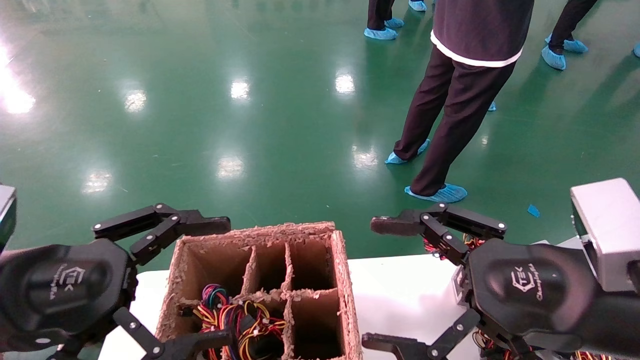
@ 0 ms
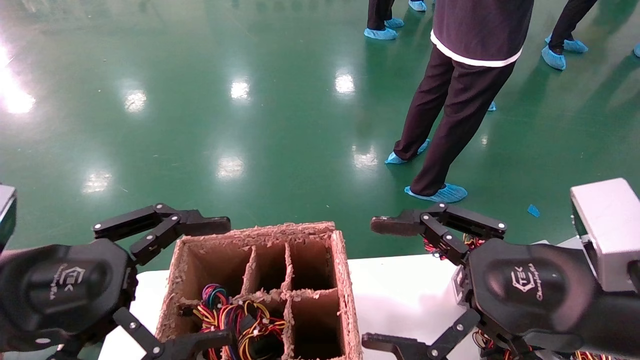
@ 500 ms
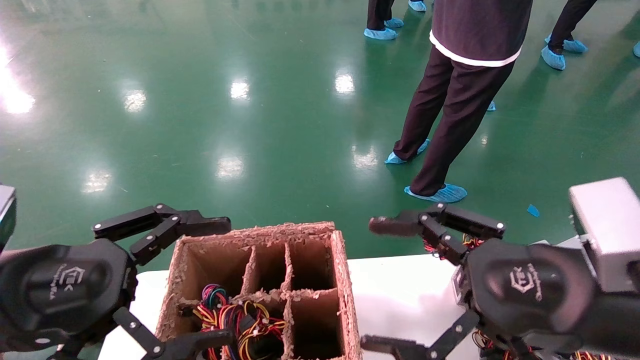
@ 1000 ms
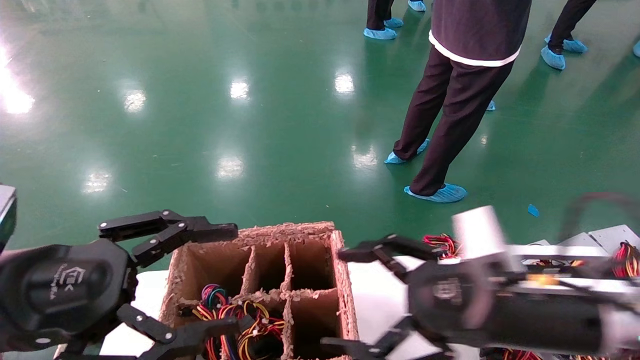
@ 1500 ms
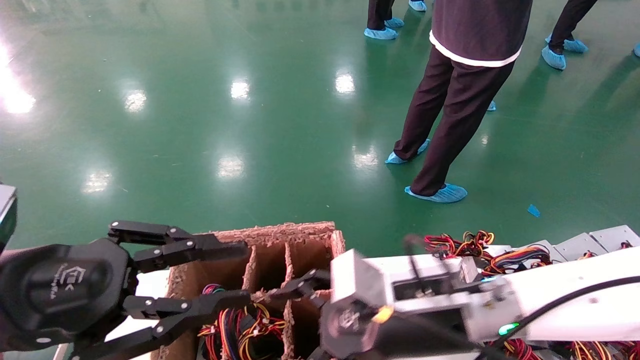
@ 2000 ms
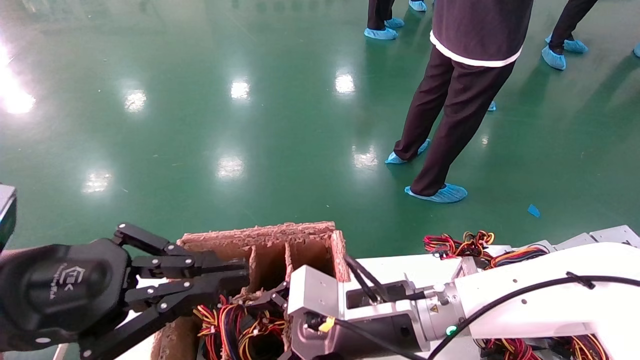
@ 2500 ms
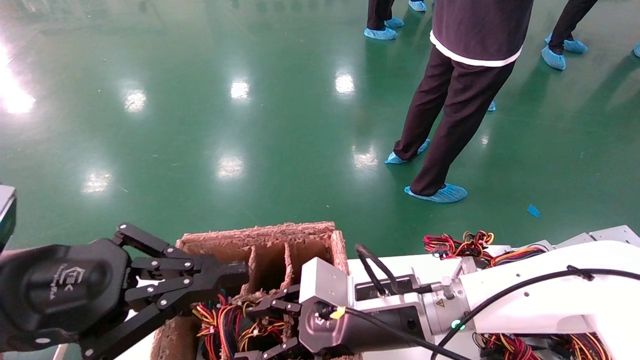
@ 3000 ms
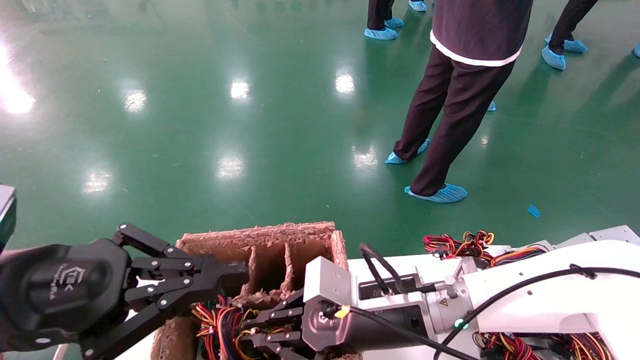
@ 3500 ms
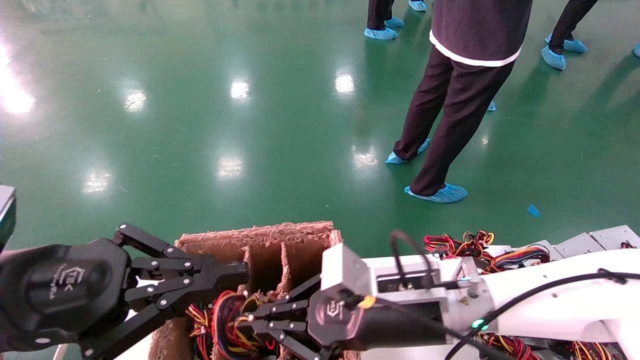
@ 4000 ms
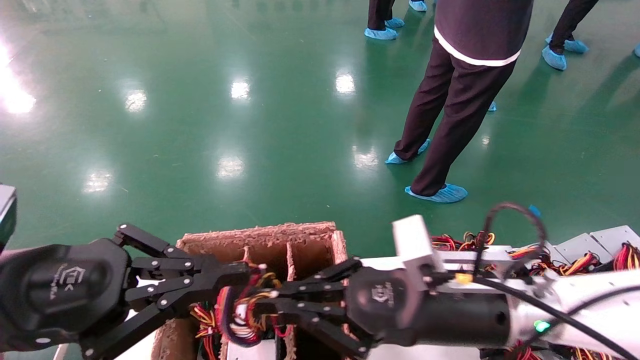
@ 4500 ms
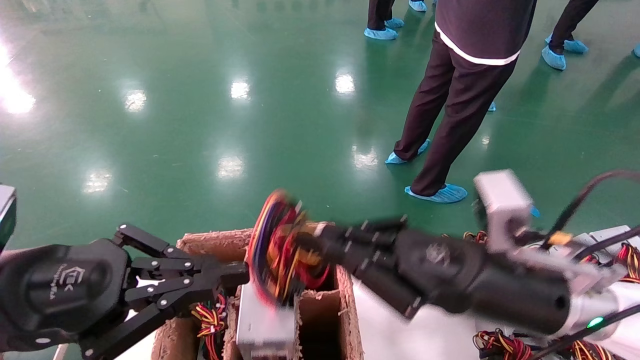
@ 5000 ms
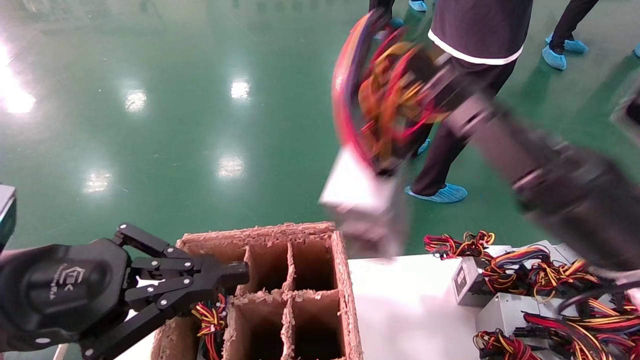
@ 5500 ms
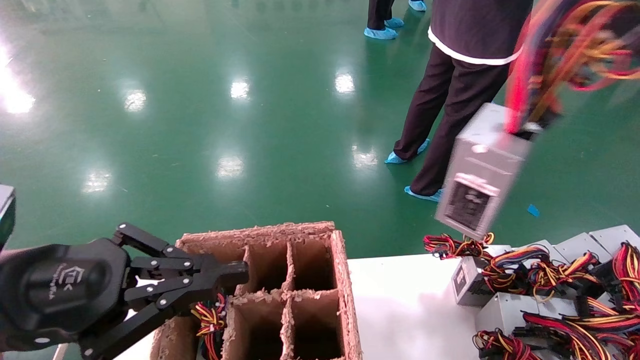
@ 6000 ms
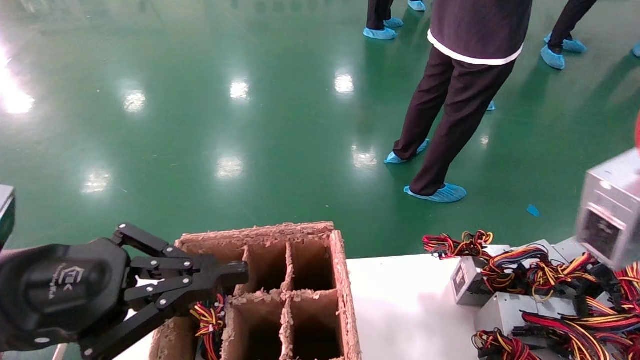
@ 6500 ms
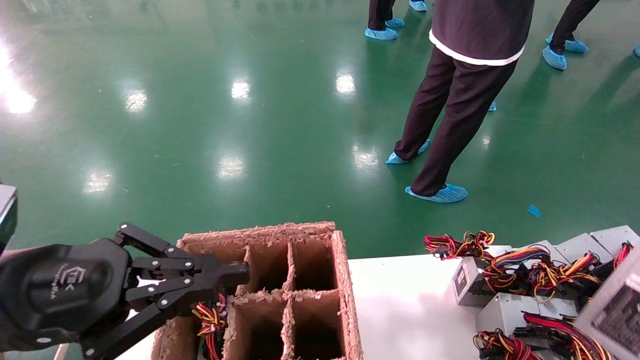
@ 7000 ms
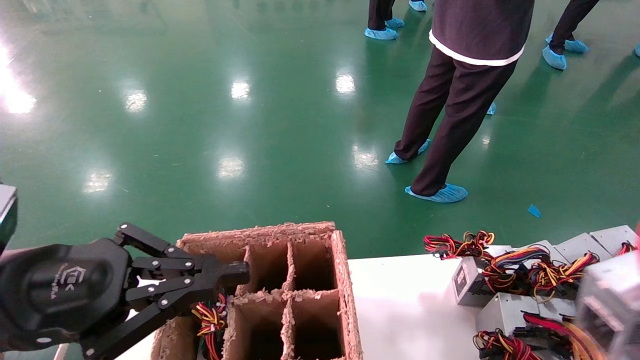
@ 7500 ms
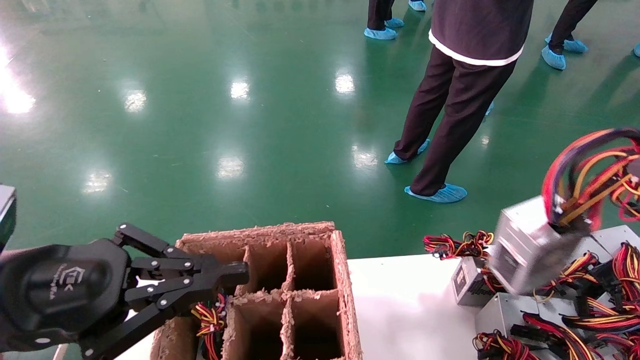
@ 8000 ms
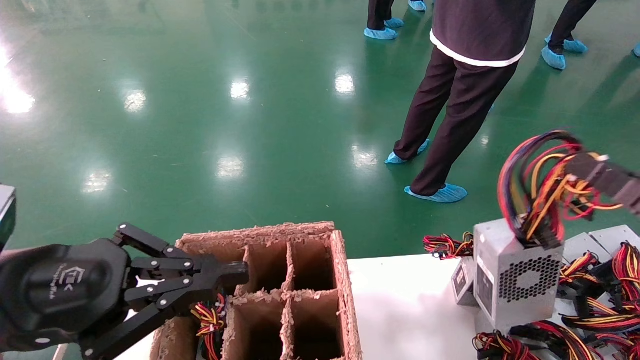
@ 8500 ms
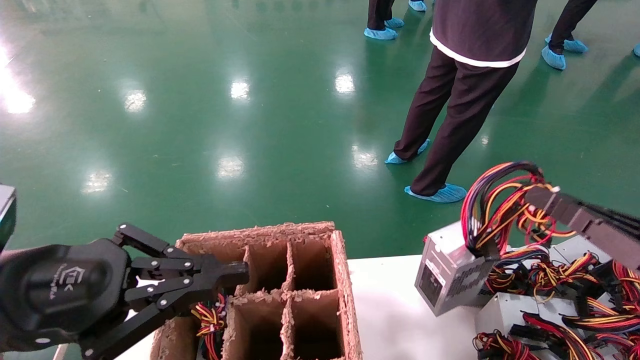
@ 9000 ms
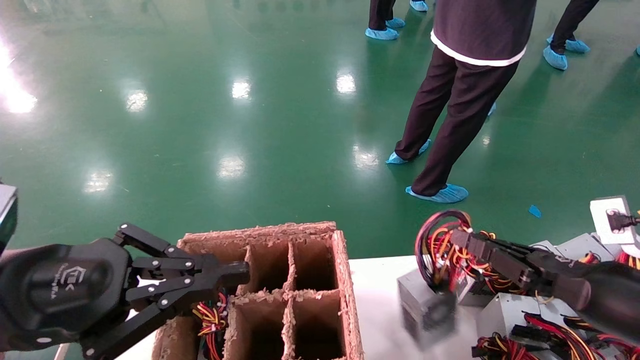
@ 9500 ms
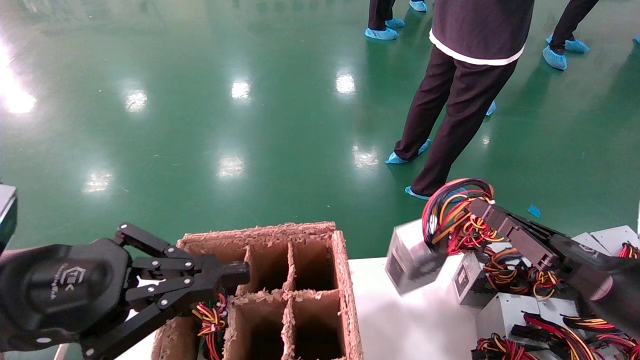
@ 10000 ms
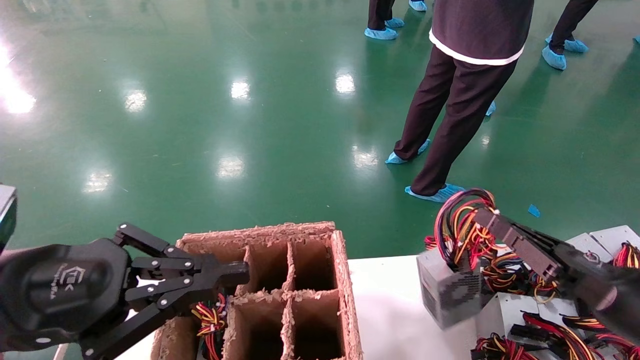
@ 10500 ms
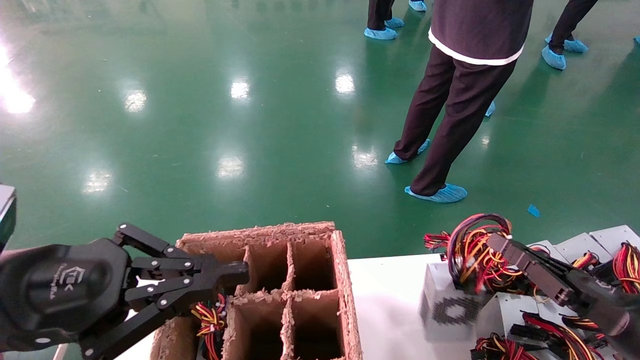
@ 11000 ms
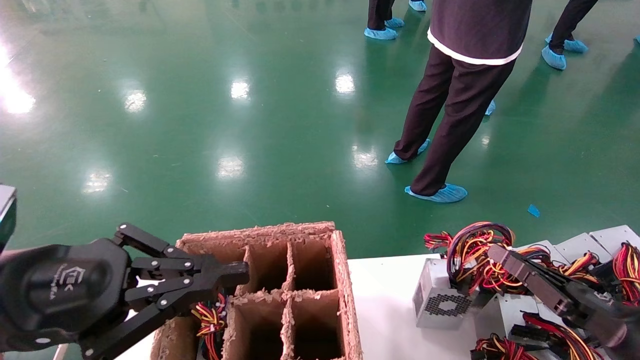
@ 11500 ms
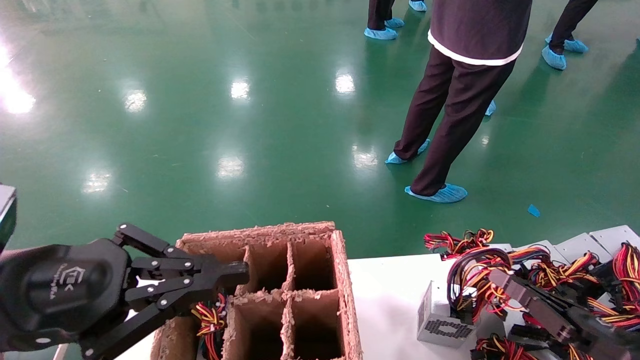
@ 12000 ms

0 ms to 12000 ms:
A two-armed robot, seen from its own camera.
Step, 1500 ms to 3500 ms: Grab the main unit power supply from the containment box.
0 ms to 2000 ms: The right gripper moves to the left, forward and downward, roughly 15 cm; the left gripper closes its fingers.
2000 ms to 4000 ms: The left gripper closes; the right gripper closes its fingers.
4000 ms to 6000 ms: The right gripper is displaced to the right and upward by roughly 30 cm.
6000 ms to 8000 ms: The right gripper shifts approximately 10 cm backward.
8000 ms to 10000 ms: The right gripper heads forward, to the left and downward, covering about 15 cm.
10000 ms to 12000 ms: The right gripper shifts approximately 10 cm downward.

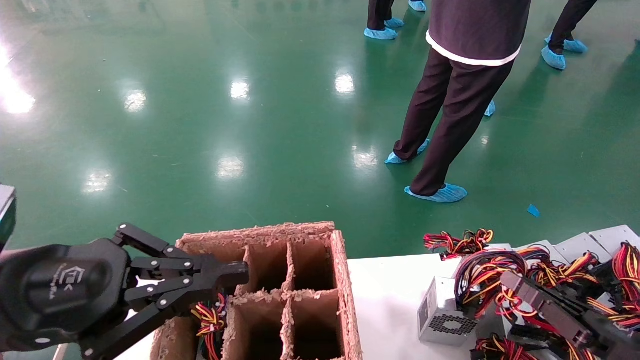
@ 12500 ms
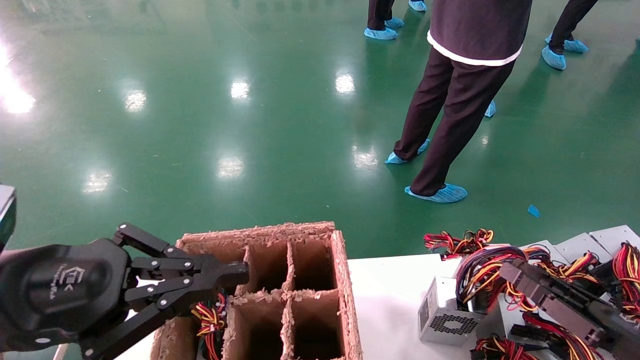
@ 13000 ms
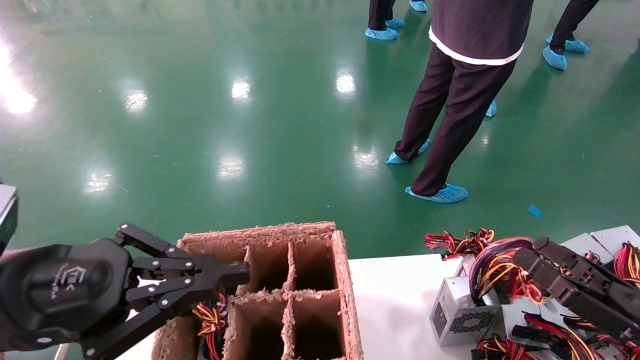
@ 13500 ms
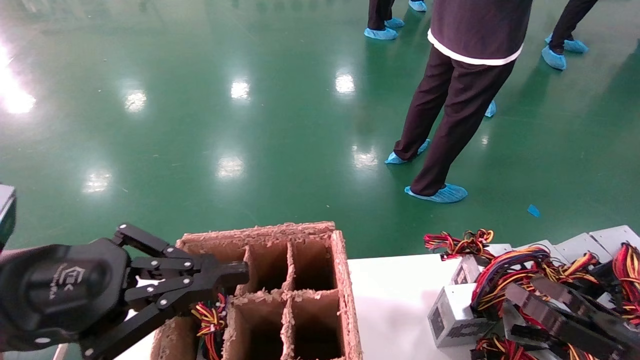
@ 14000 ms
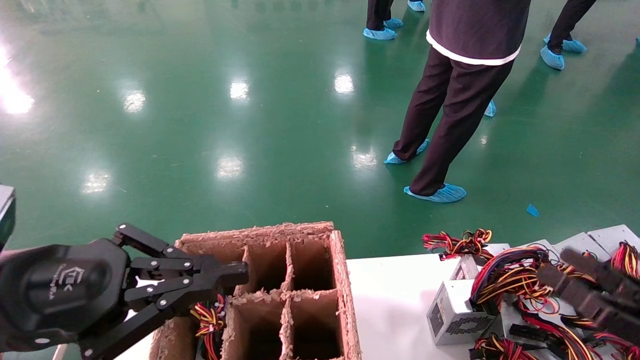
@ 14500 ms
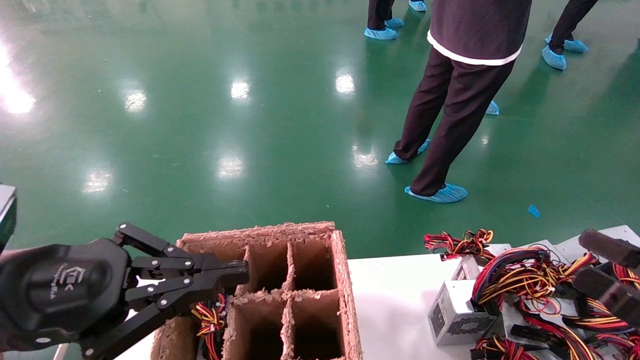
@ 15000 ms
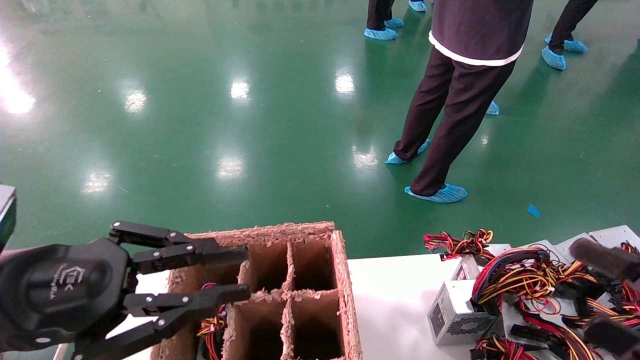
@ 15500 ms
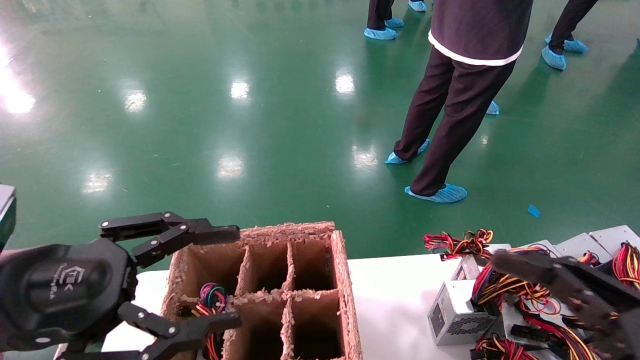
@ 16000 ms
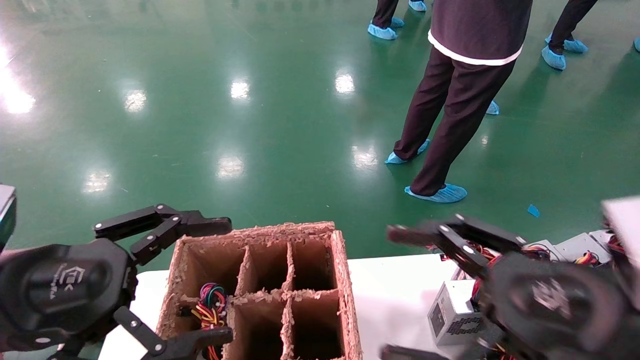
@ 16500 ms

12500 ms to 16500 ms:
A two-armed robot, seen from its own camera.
12500 ms to 14500 ms: The right gripper shifts roughly 5 cm upward, and opens.
14500 ms to 16500 ms: The left gripper opens up; the right gripper shifts some 20 cm to the left and upward.
